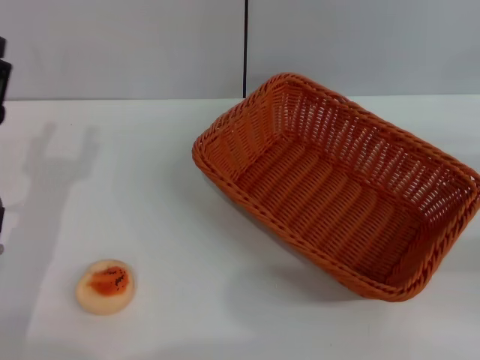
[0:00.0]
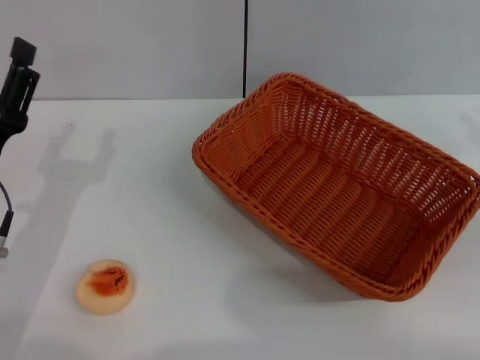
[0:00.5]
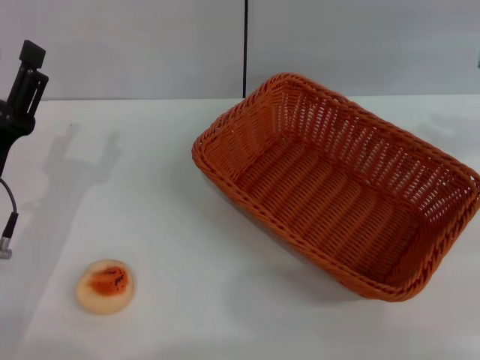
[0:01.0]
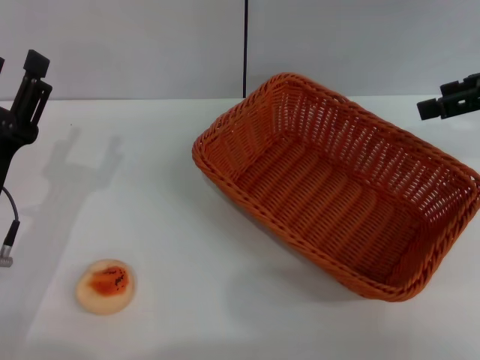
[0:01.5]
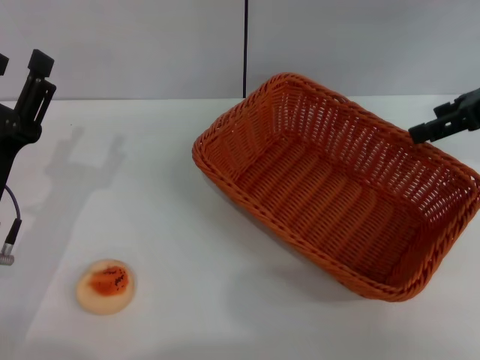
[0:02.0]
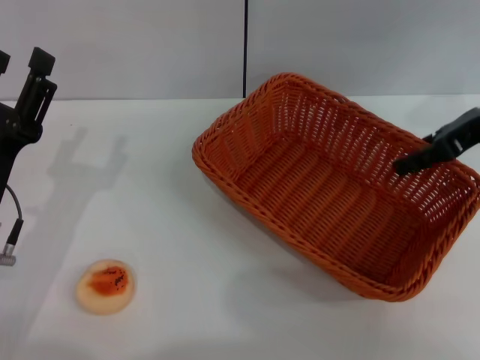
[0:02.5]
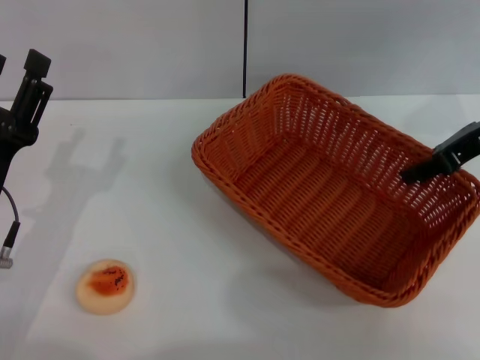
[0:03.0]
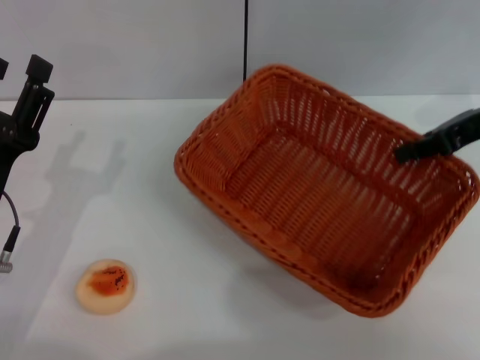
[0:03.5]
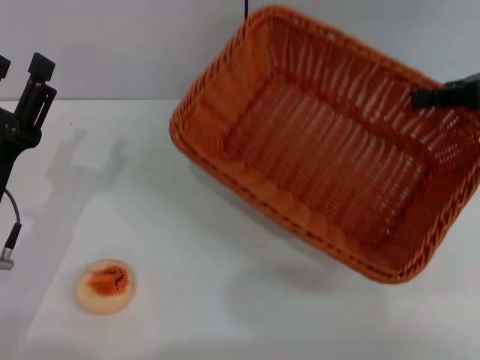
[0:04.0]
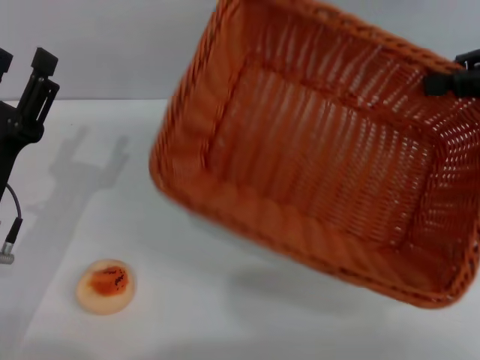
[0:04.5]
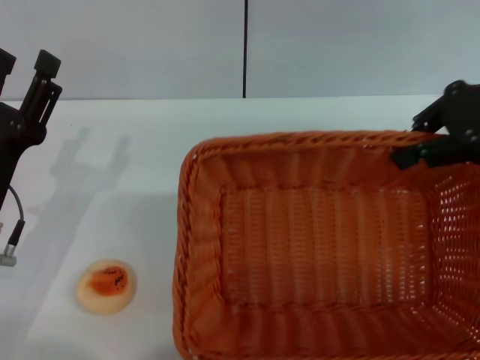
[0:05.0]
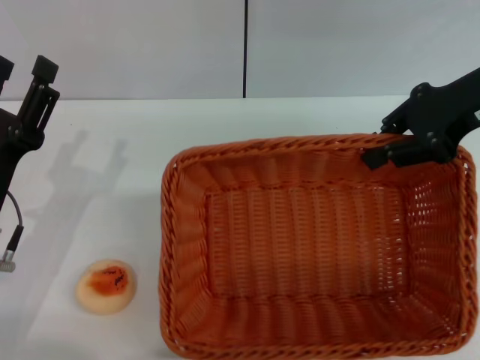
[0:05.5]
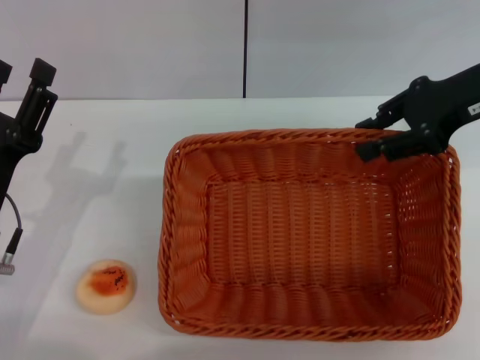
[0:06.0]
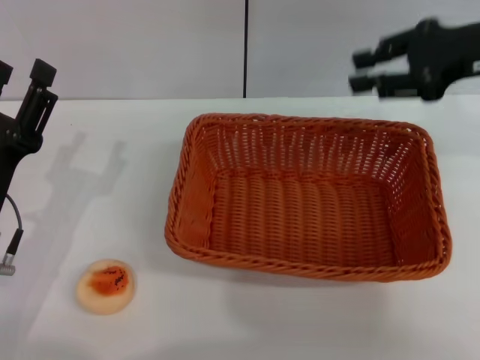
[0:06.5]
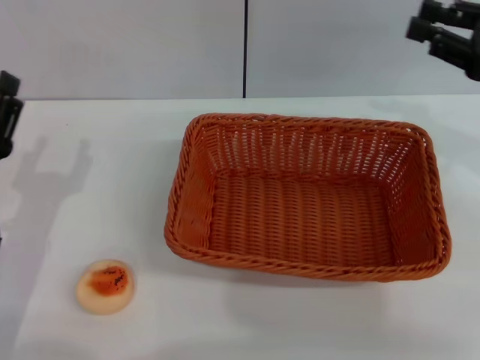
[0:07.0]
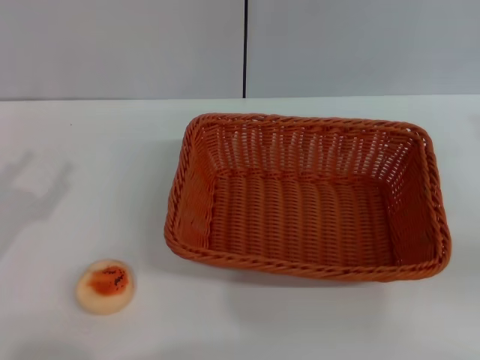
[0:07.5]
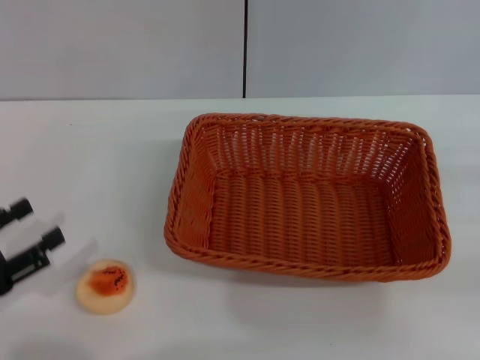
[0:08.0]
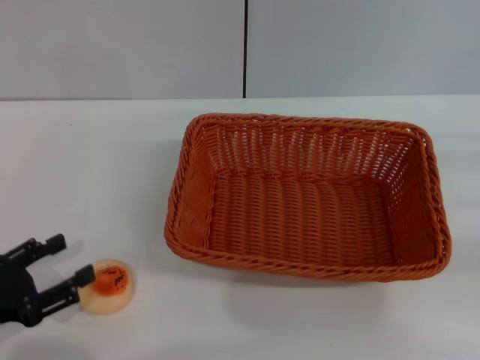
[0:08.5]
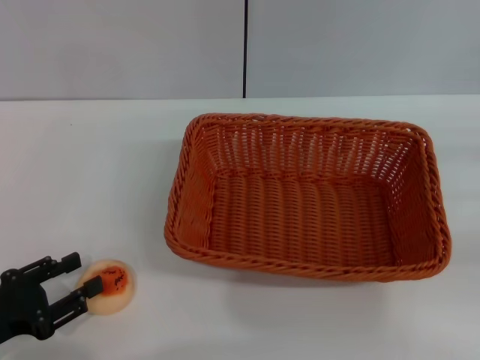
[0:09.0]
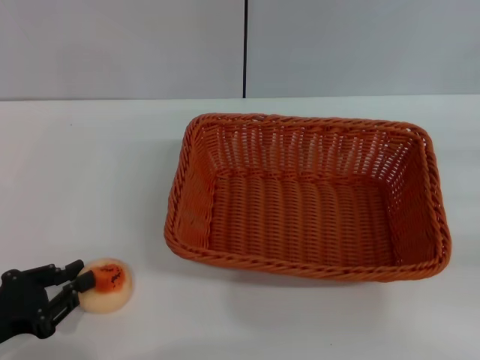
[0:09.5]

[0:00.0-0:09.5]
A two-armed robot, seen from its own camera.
Step, 0.0 to 6.0 s: Move the basket to the center of view with the right gripper.
0.0 to 2.0 s: The right gripper travels upward, forward and to the left by approximately 20 cm, and opens up.
2.0 to 4.0 s: The right gripper closes up.
4.0 to 5.5 s: The right gripper heads to the left, covering roughly 5 cm.
5.5 to 7.5 s: The right gripper moves to the right, backward and downward, some 20 cm; the left gripper heads to the left, covering approximately 10 cm.
7.5 to 9.5 s: The left gripper changes place by about 5 cm, and closes.

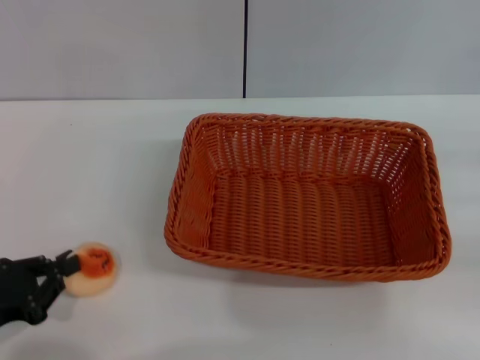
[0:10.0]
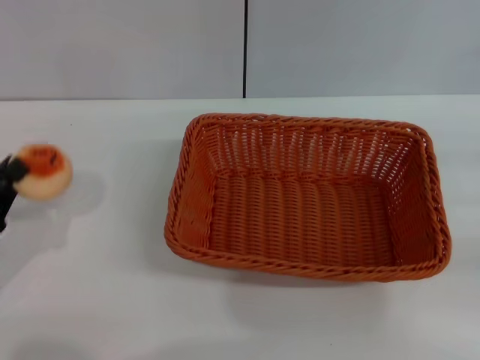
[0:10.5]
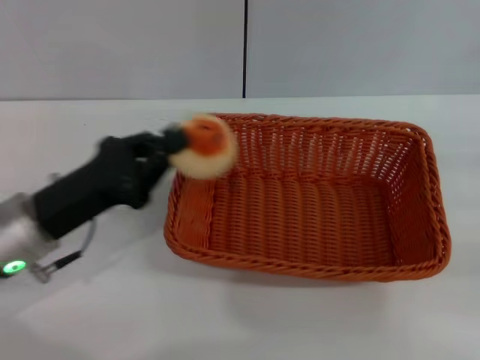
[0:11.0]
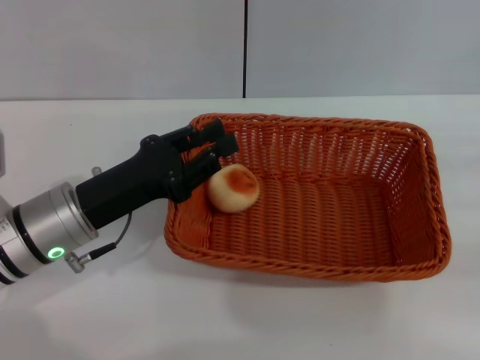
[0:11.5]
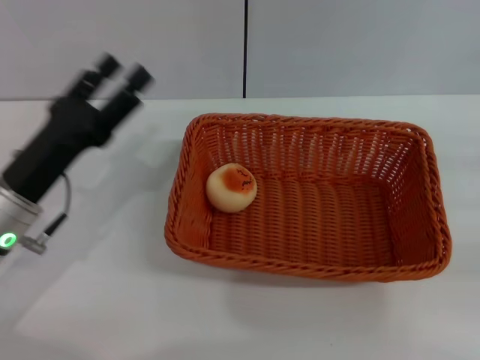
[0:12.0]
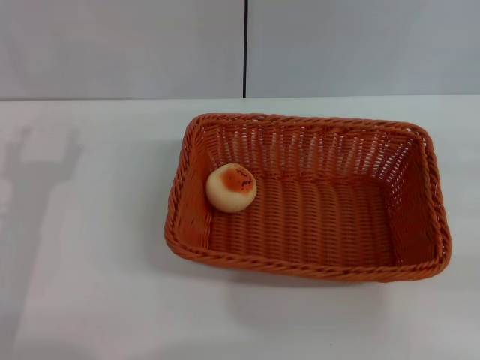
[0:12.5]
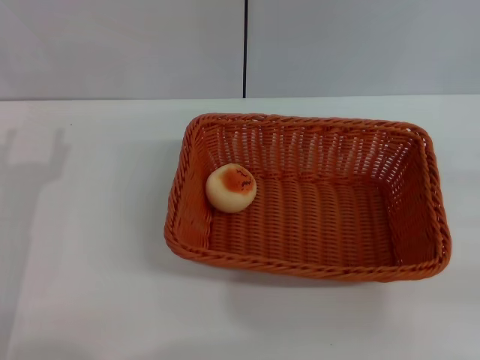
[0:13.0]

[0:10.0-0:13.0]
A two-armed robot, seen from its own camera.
Step, 10.5 to 11.5 s: Place the egg yolk pastry into the basket with the left gripper.
10.0 to 11.5 s: The left gripper heads to the right and forward, covering some 15 cm.
11.5 to 13.0 s: The left gripper heads to the left, covering roughly 5 cm, and opens its fingers.

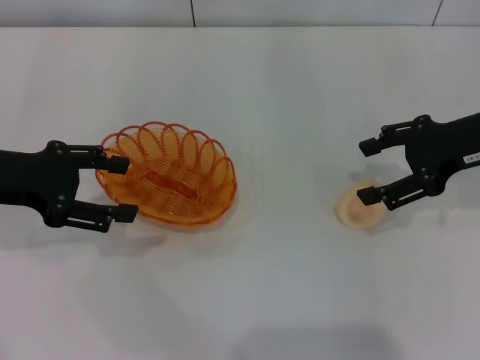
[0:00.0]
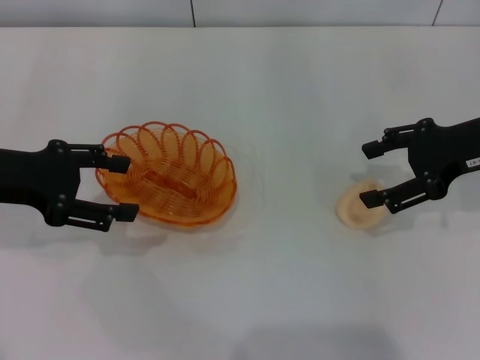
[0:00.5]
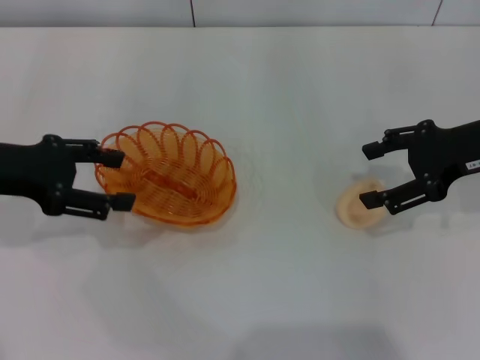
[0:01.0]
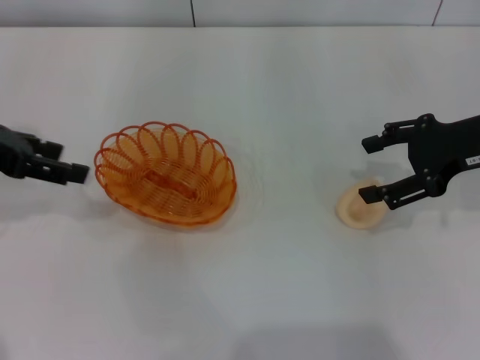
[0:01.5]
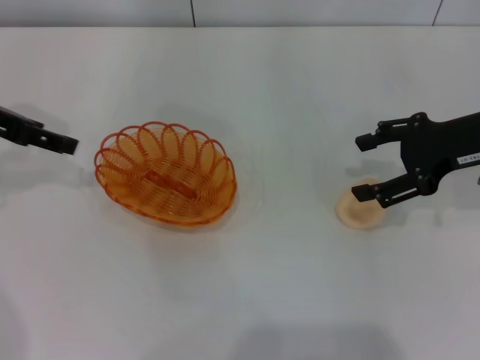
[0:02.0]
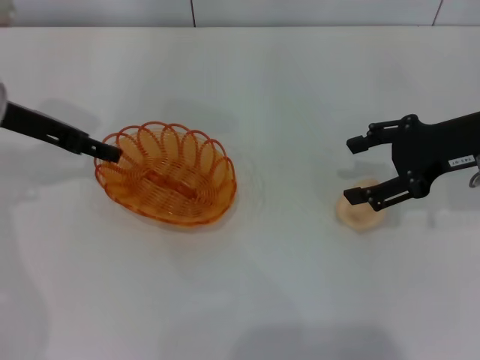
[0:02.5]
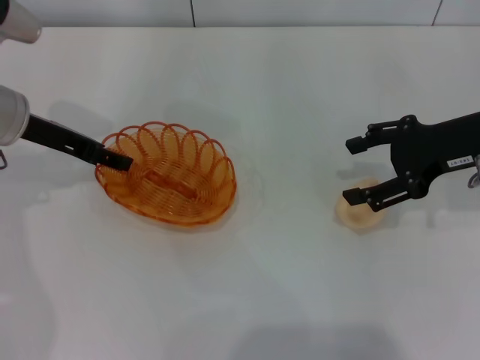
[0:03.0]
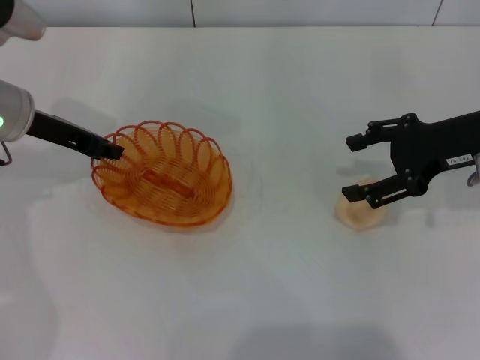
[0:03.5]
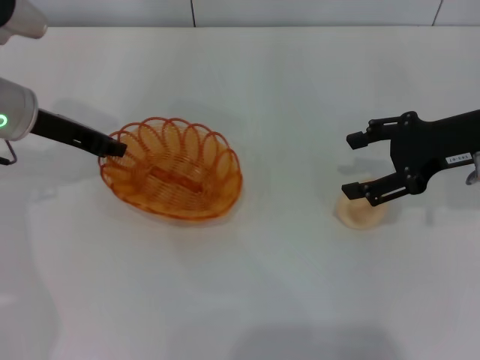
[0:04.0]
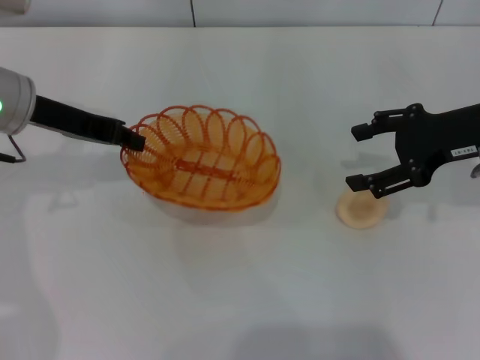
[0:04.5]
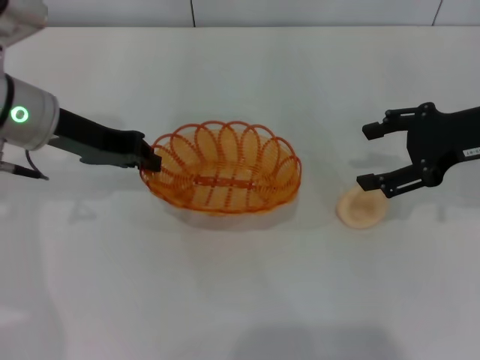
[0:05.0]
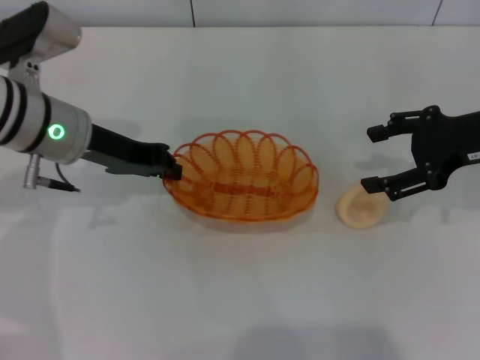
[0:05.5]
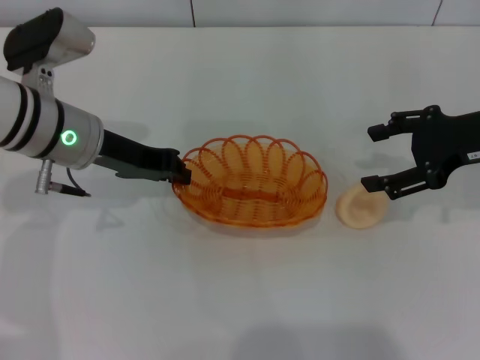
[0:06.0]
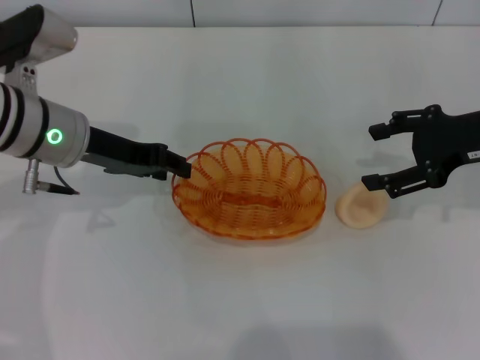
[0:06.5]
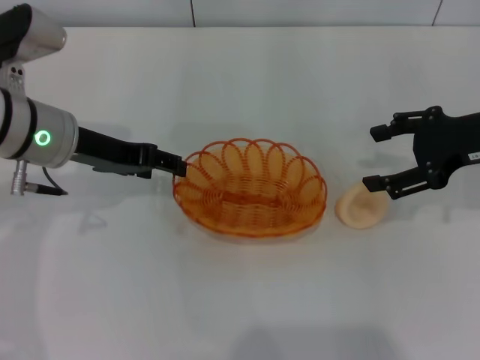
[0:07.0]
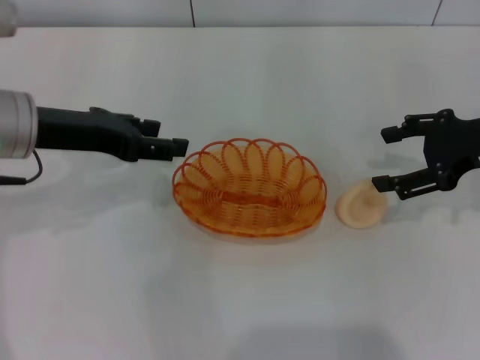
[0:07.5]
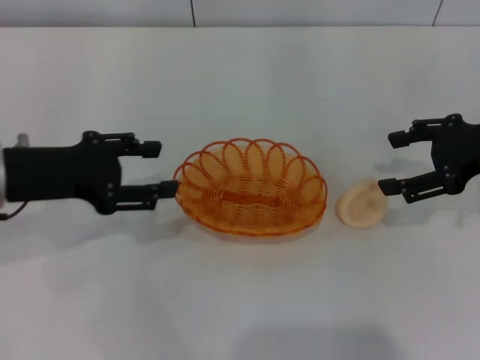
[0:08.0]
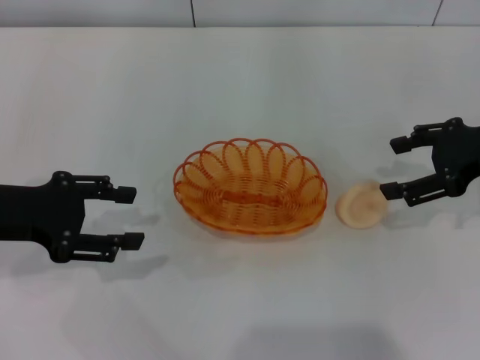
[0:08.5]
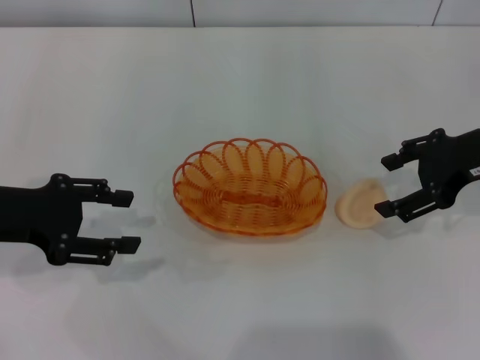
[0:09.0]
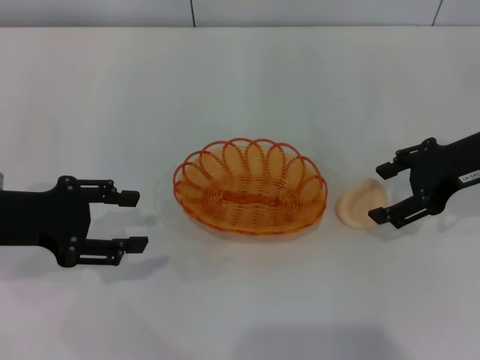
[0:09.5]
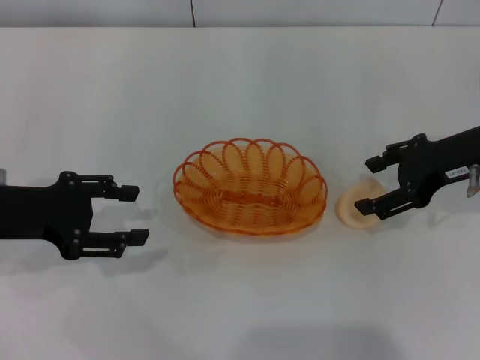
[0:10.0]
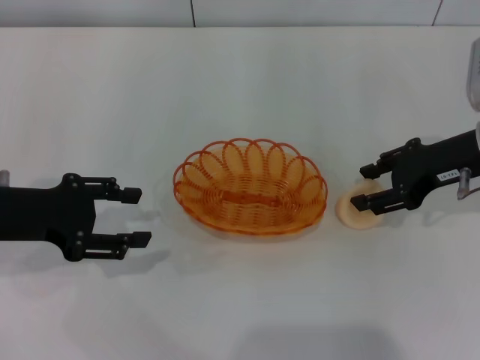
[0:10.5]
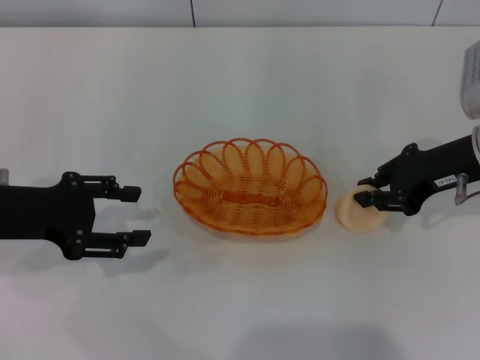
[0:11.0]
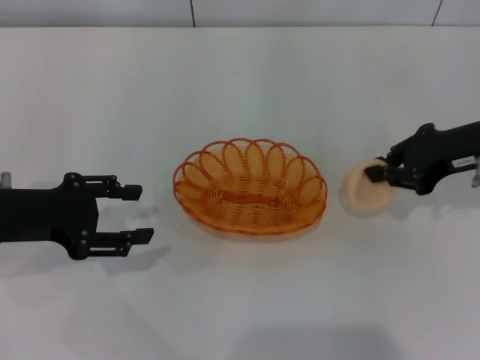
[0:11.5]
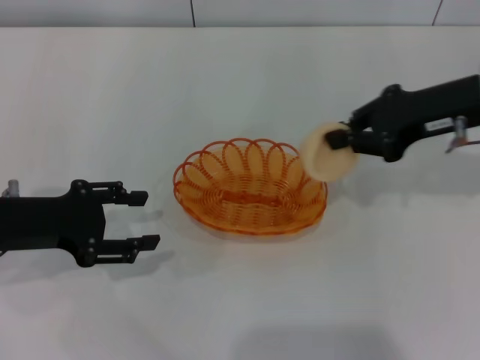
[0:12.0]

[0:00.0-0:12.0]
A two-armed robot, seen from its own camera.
Step, 0.0 to 4.5 s: Pick up the basket with the left gripper.
Step, 5.0 to 7.0 s: Place the basket in the center of view with the left gripper.
Step, 7.5 to 11.5 s: Pick up the egg yolk pastry with the right gripper.
0.0 to 2.0 s: The left gripper travels forward by about 5 cm.
2.0 to 4.0 s: The left gripper goes approximately 10 cm downward and to the right, and closes up.
4.0 to 6.0 s: The left gripper goes approximately 5 cm to the right.
6.0 to 8.0 s: The left gripper moves to the left and backward, some 10 cm, and opens its fingers.
8.0 to 10.0 s: There are only small adjustments of the grippers.
10.0 to 12.0 s: The right gripper closes.

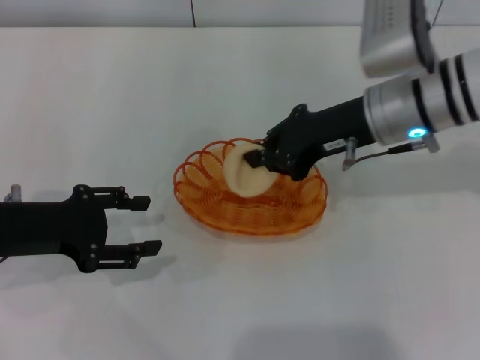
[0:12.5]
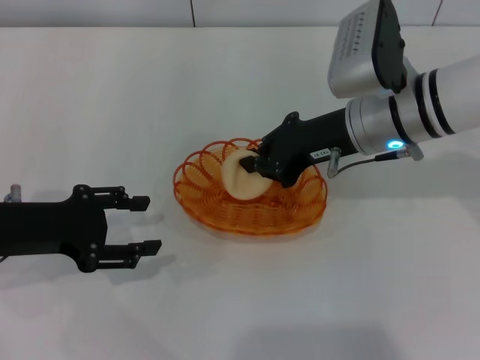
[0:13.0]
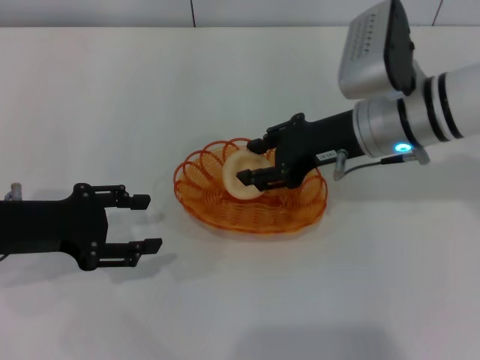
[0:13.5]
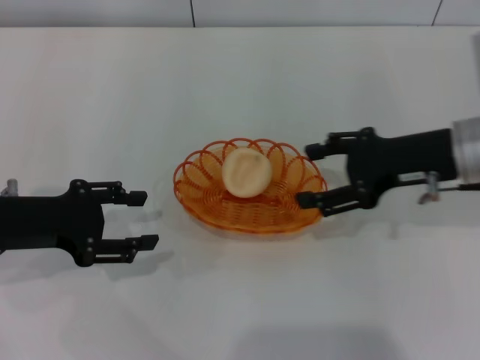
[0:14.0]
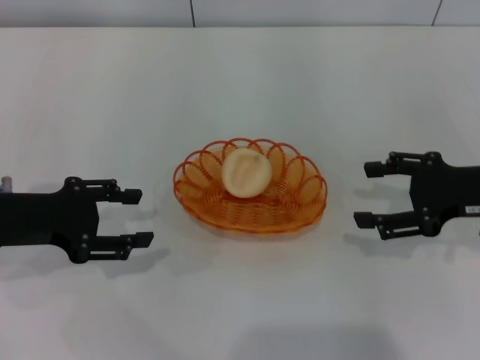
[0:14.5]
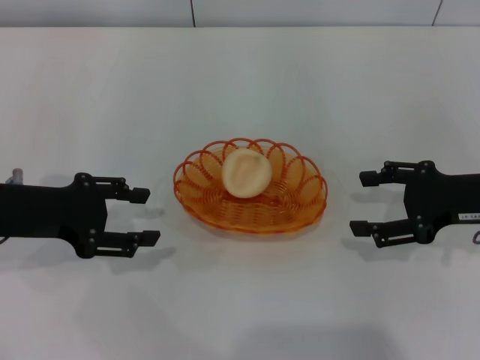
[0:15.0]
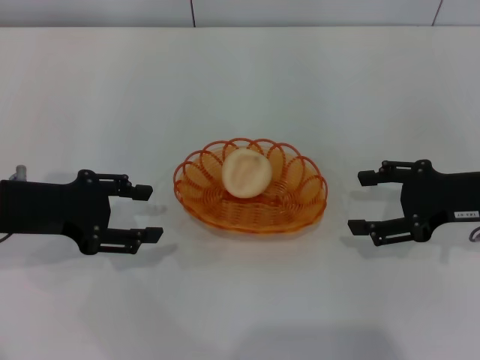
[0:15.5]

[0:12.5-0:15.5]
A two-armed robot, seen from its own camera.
Step, 12.5 to 13.5 s: Place the egg yolk pastry into the basket with the right gripper.
12.5 to 14.0 s: The right gripper travels to the right by approximately 10 cm, and opens up.
14.0 to 15.5 s: The right gripper is displaced to the right by approximately 5 cm.
